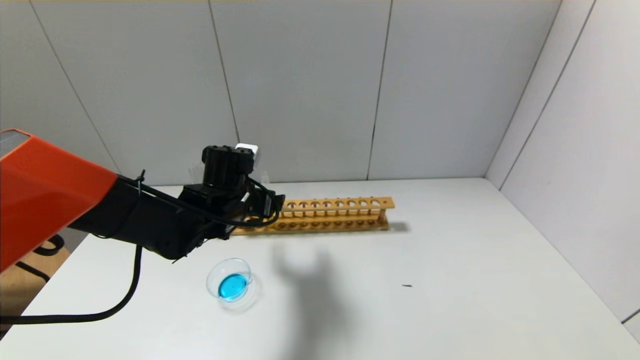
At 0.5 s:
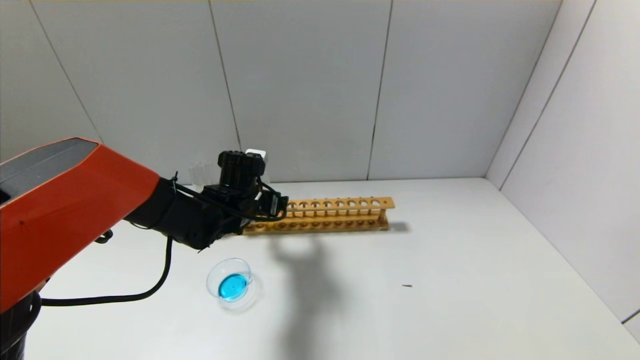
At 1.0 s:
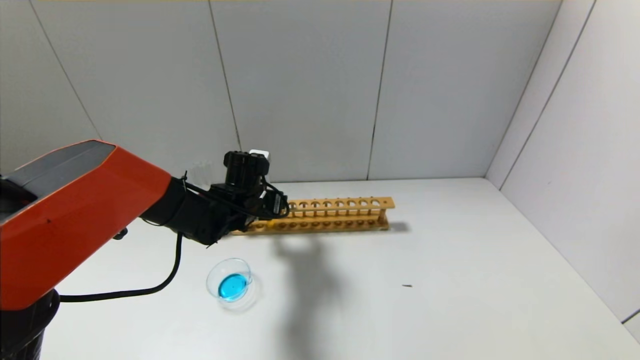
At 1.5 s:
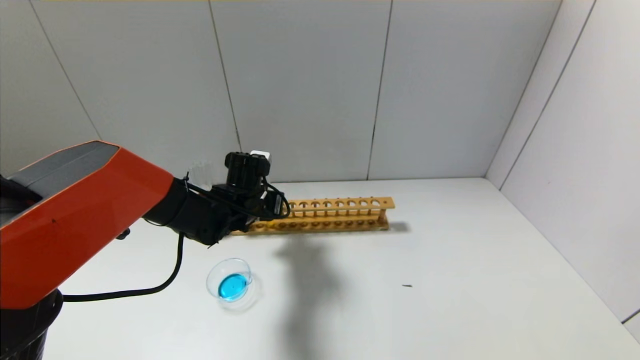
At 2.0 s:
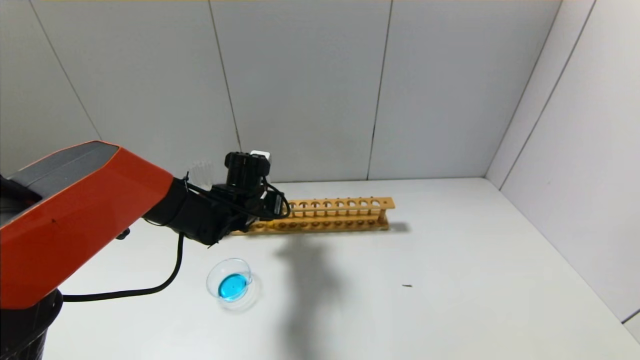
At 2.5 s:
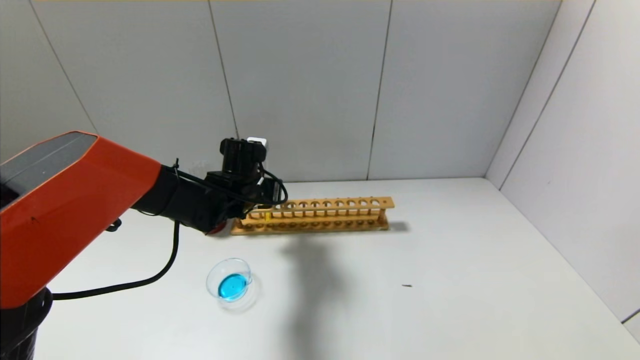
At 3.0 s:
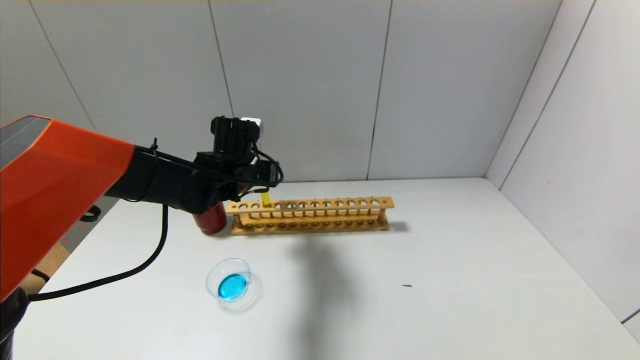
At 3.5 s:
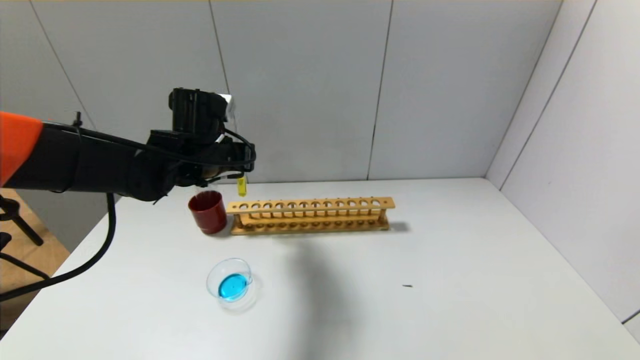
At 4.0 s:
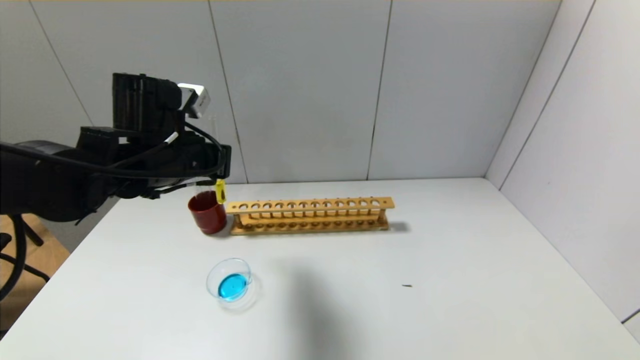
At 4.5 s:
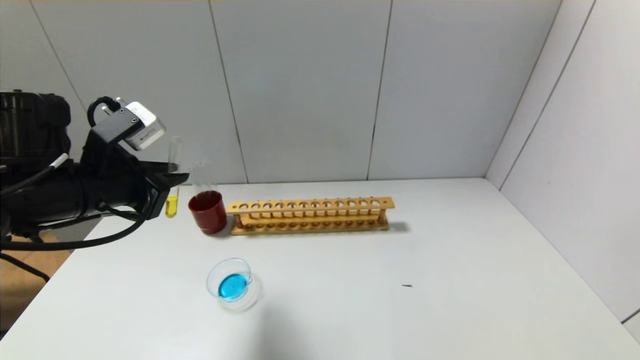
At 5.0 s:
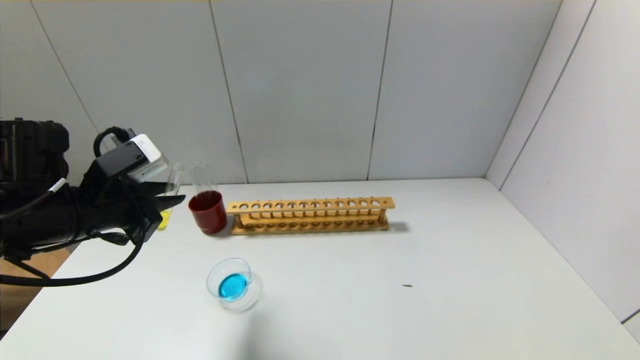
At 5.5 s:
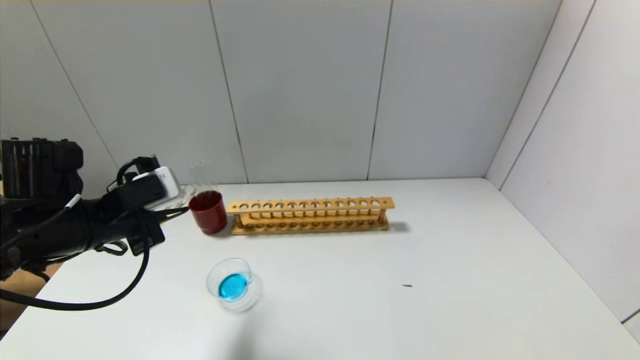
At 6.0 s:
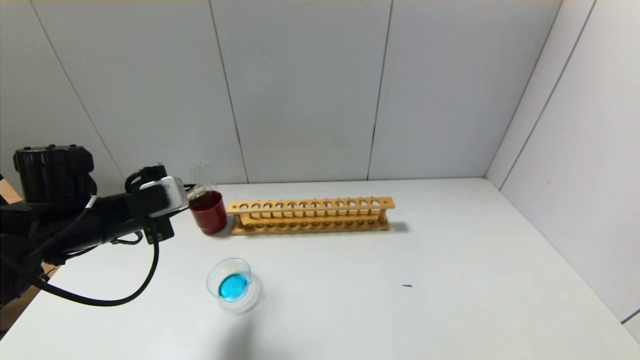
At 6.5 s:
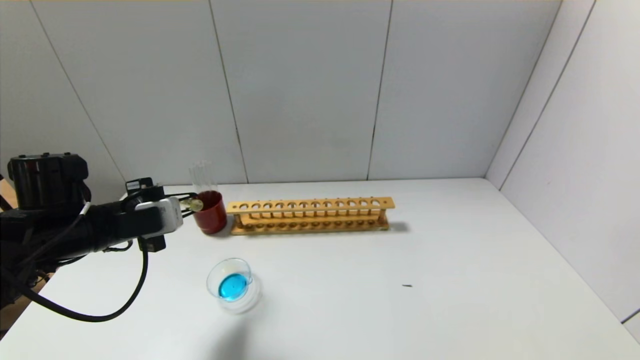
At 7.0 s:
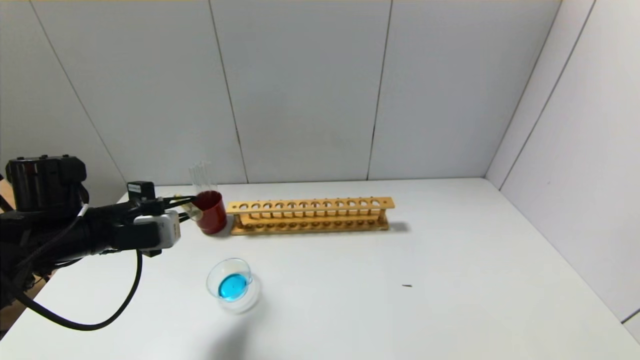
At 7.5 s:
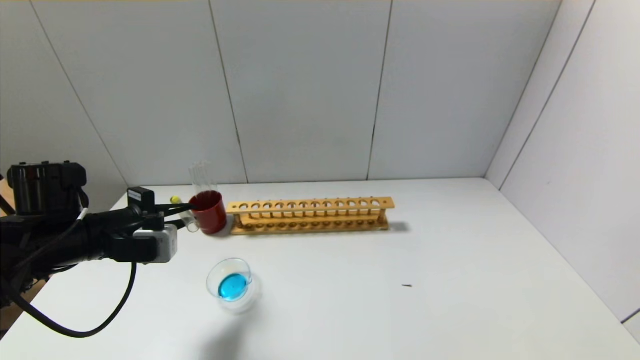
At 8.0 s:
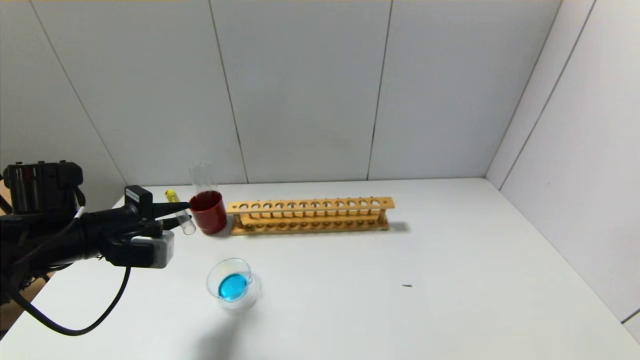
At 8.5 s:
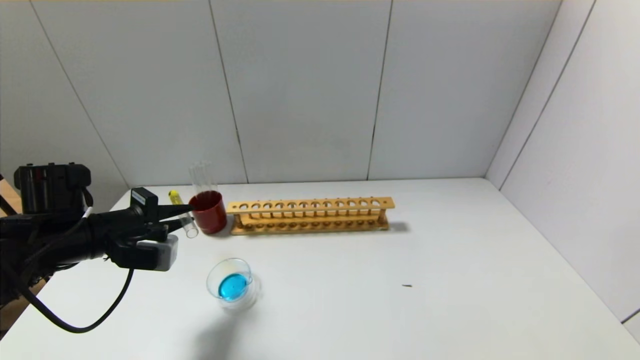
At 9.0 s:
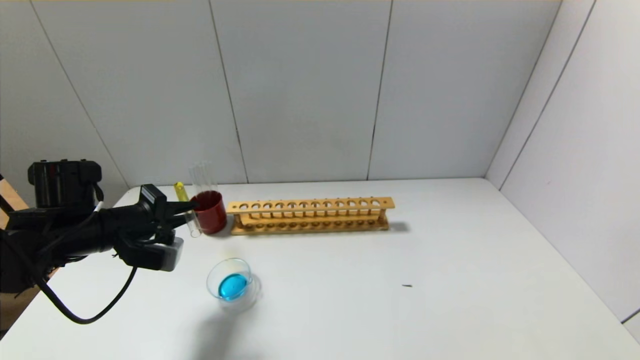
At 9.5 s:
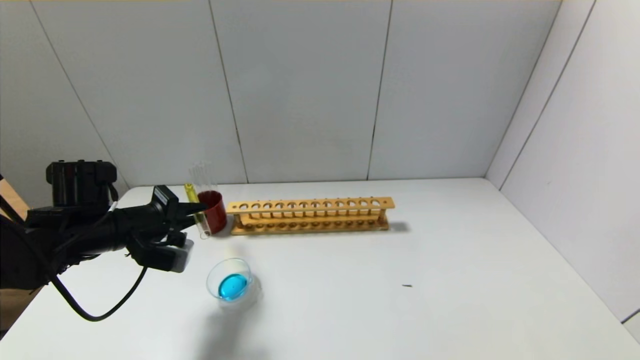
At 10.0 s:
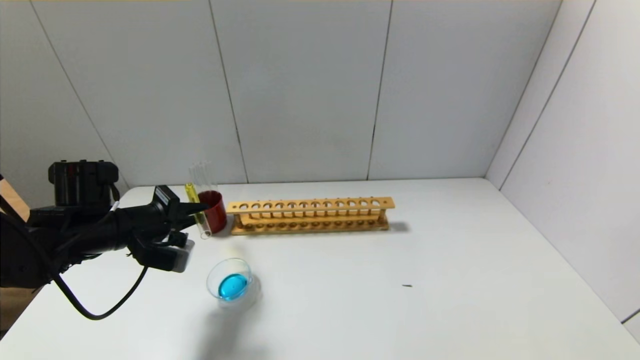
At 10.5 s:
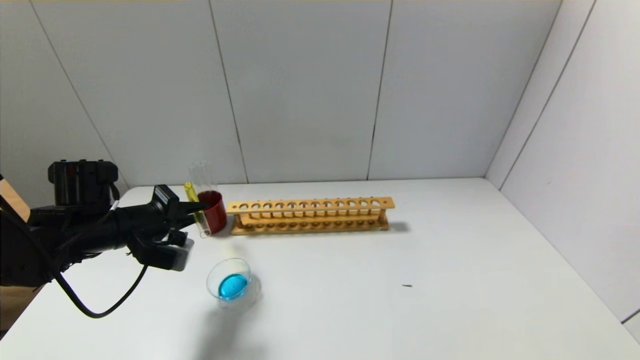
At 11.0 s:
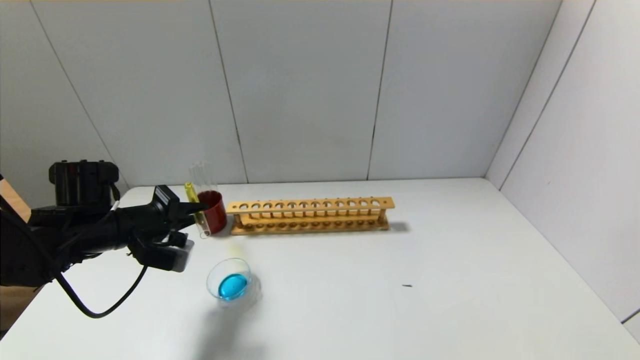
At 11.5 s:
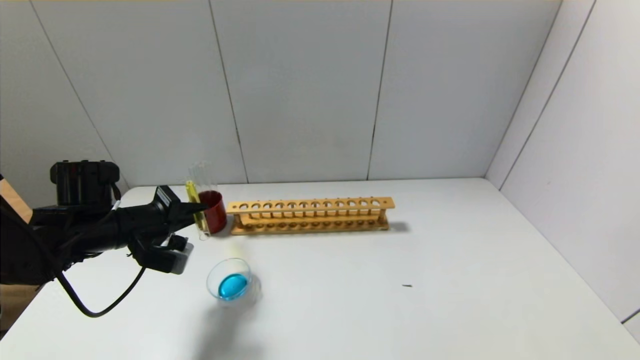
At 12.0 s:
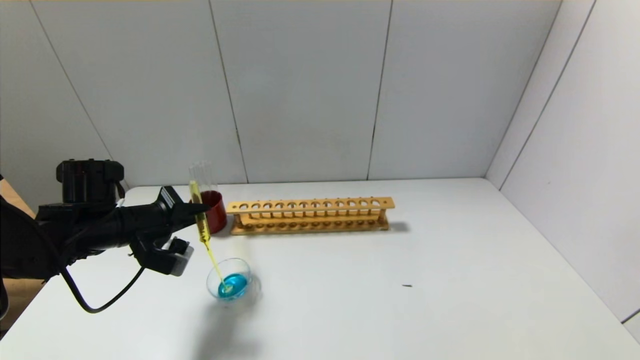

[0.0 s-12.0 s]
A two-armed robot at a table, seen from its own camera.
0.0 to 2.0 s: The left gripper moves roughly 5 cm, and closes.
2.0 to 4.0 s: The left gripper goes approximately 20 cm upward, backward and to the left.
4.0 to 6.0 s: The left gripper goes about 10 cm to the left and downward.
8.0 to 10.0 s: The grippers move only a little.
10.0 to 12.0 s: The grippers move only a little.

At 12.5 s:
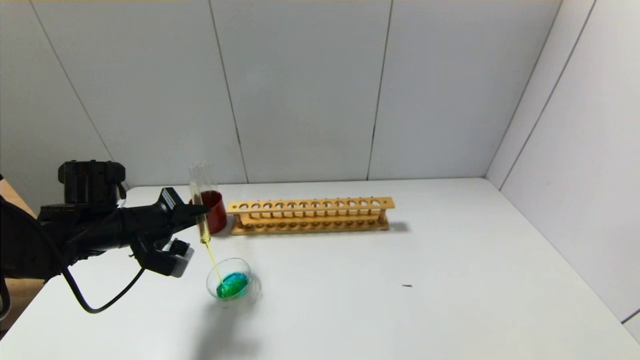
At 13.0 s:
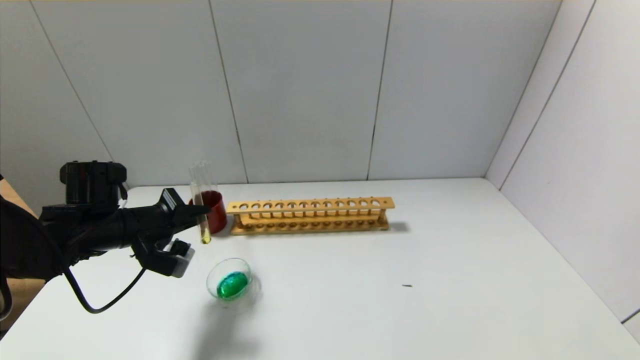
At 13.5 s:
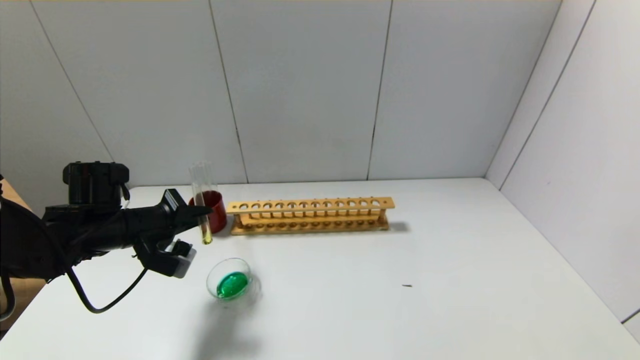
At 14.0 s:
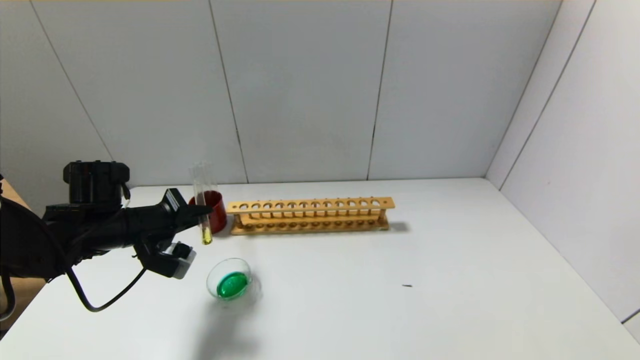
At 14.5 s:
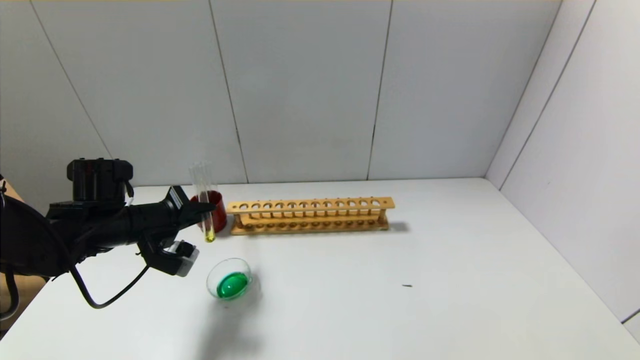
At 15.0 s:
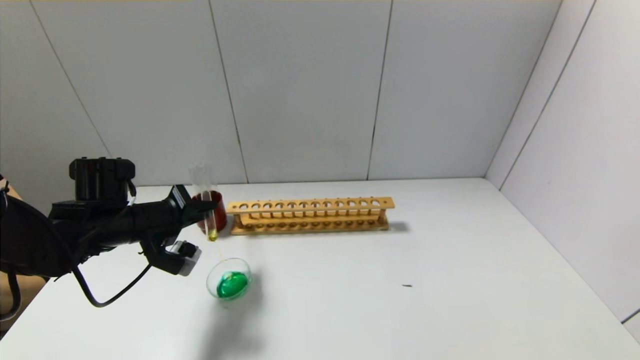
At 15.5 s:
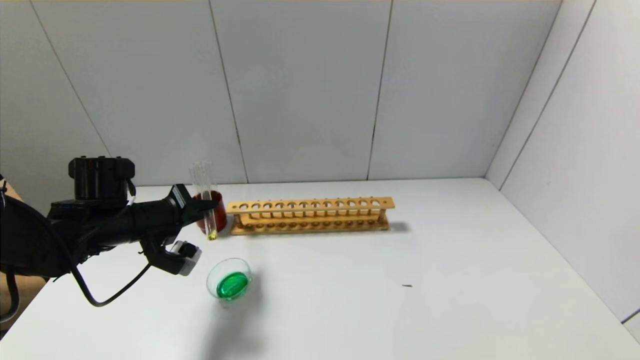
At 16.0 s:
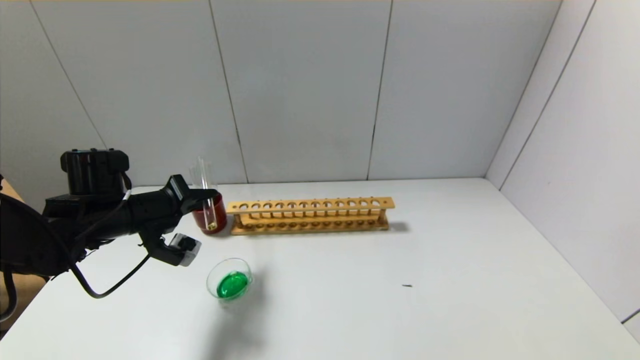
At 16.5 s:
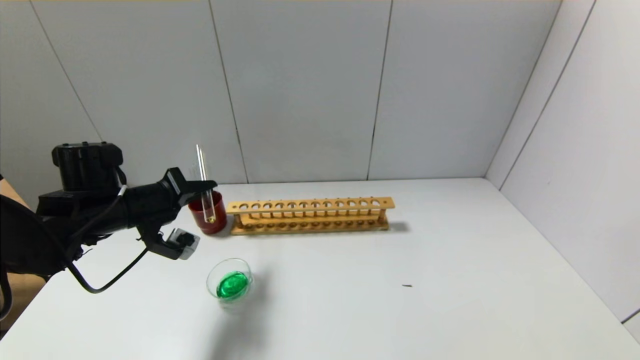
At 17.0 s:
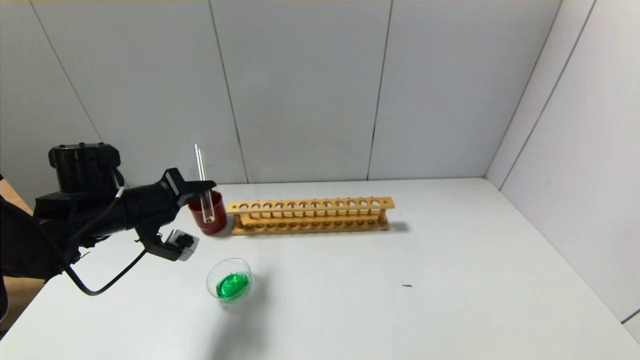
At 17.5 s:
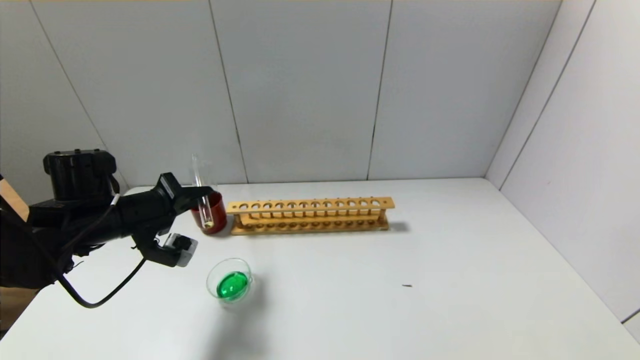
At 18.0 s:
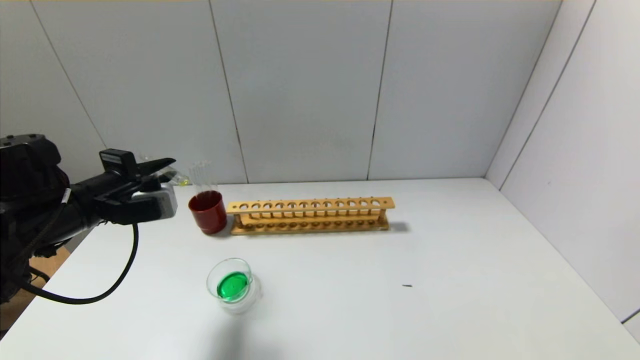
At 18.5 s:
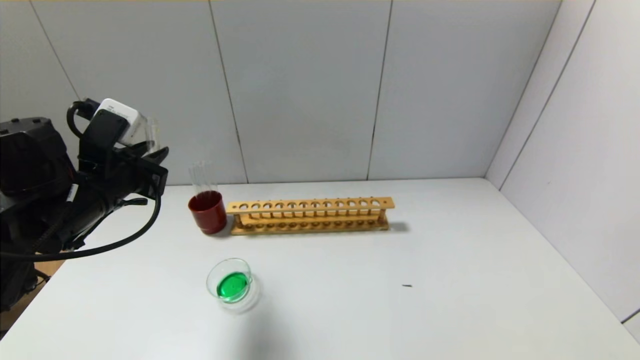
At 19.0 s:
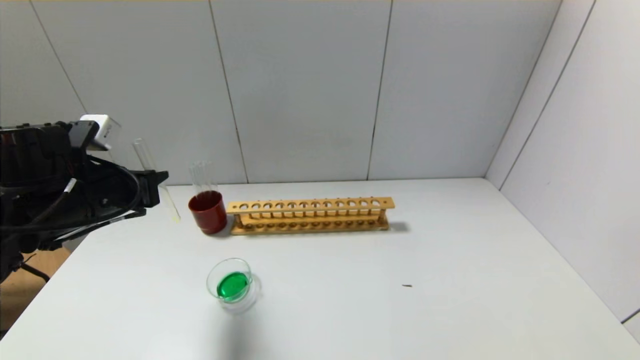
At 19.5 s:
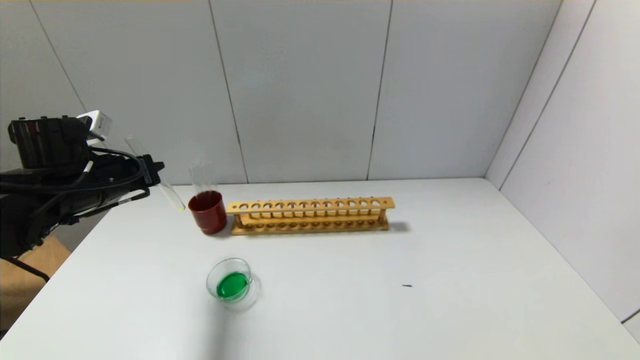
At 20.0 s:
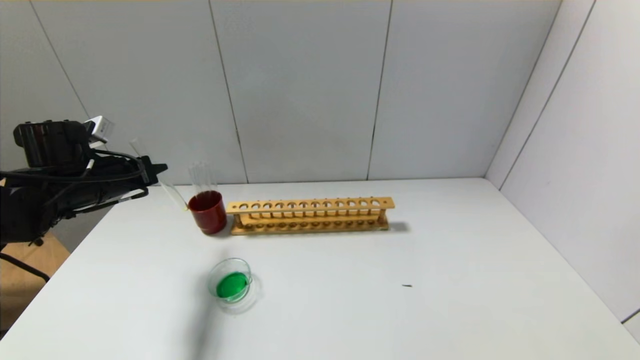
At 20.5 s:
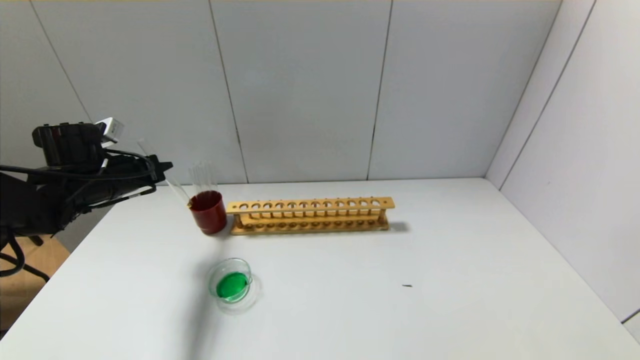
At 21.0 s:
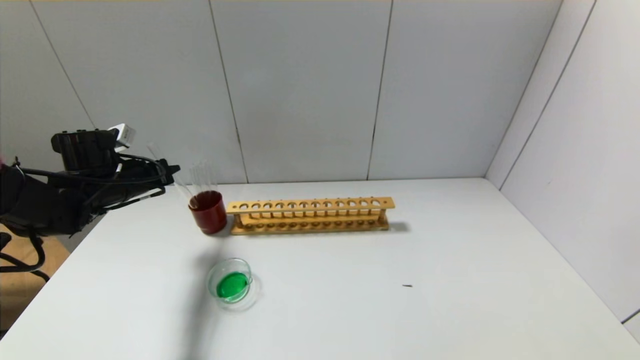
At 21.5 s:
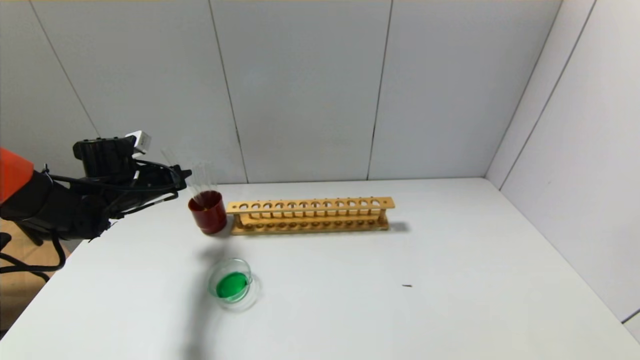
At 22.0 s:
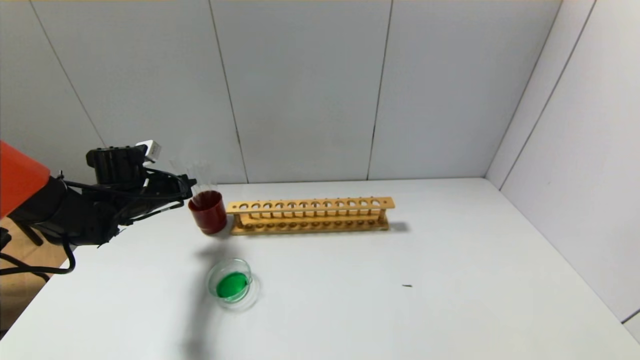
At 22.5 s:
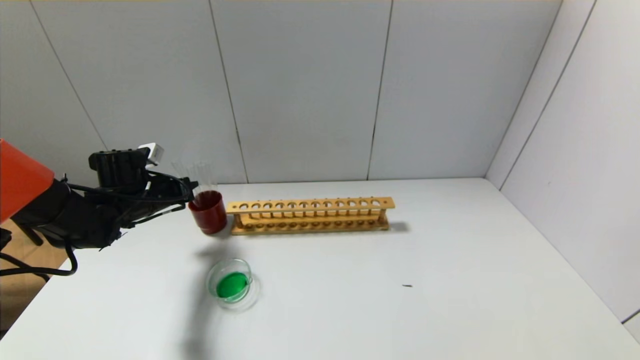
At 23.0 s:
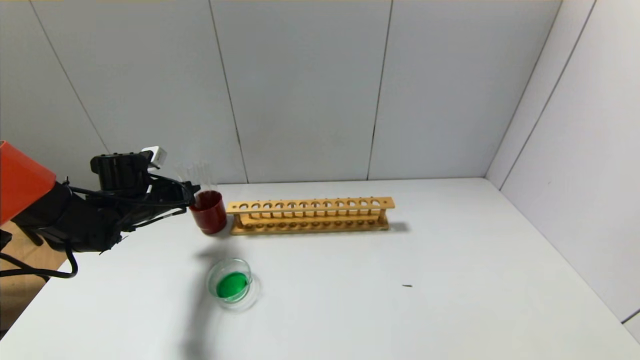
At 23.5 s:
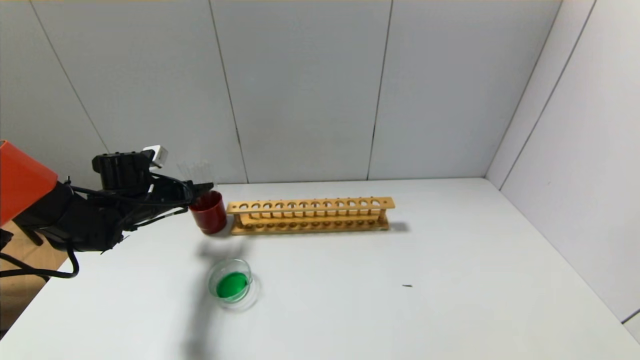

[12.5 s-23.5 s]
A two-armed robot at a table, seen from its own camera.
Step, 12.5 to 17.5 s: Pour the yellow reagent into the graduated cylinder with the left gripper.
Step, 18.0 to 23.0 s: Place the test tube into the brown cup with the left gripper.
12.5 to 16.0 s: The grippers stay close to where they were, moving slightly.
16.0 to 18.0 s: The left gripper moves some 5 cm.
18.0 to 20.0 s: The left gripper travels forward by about 5 cm.
20.0 to 21.5 s: The left gripper moves forward, some 5 cm.
21.5 to 23.5 s: The left gripper opens.
